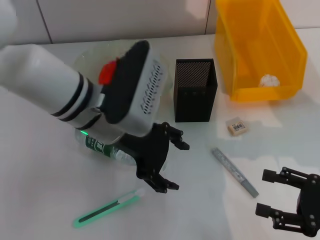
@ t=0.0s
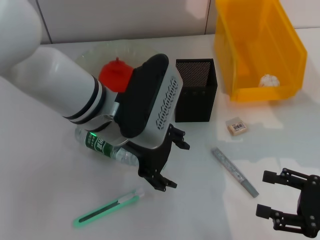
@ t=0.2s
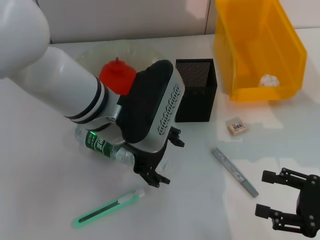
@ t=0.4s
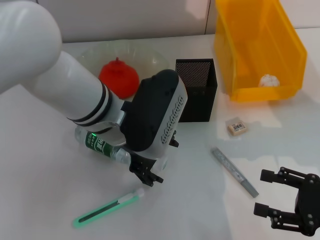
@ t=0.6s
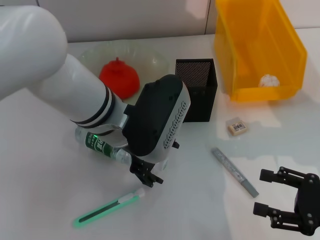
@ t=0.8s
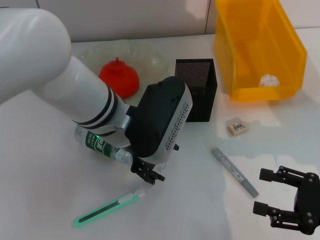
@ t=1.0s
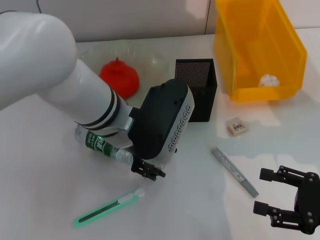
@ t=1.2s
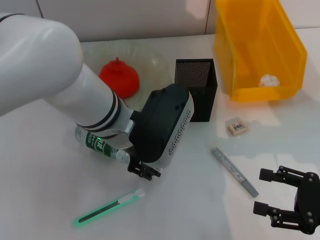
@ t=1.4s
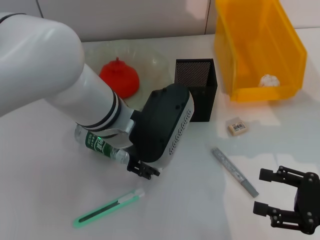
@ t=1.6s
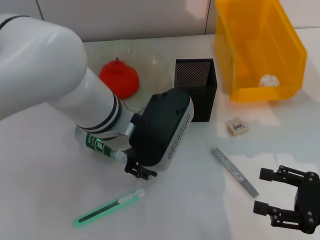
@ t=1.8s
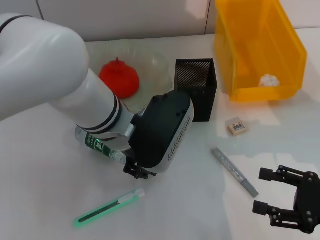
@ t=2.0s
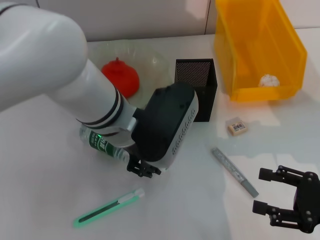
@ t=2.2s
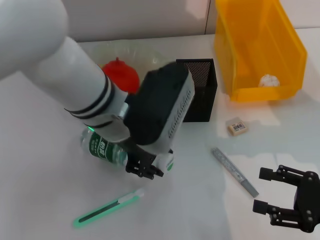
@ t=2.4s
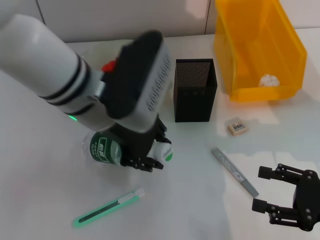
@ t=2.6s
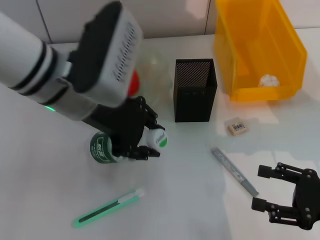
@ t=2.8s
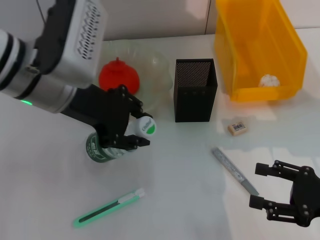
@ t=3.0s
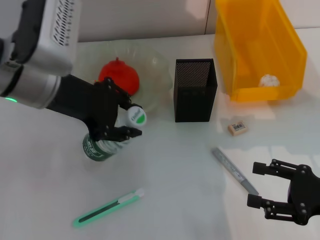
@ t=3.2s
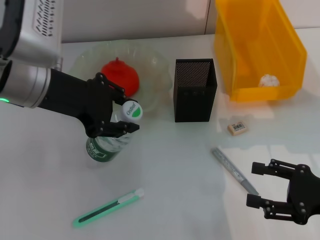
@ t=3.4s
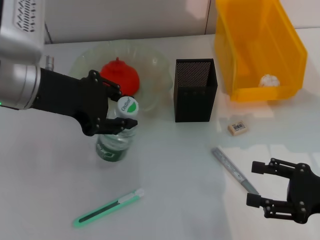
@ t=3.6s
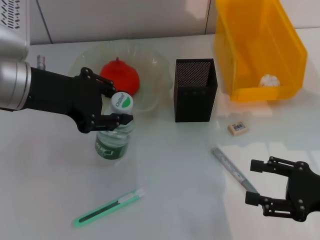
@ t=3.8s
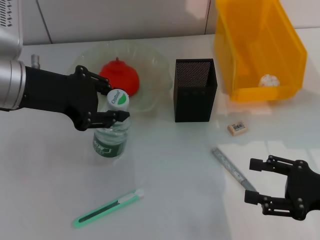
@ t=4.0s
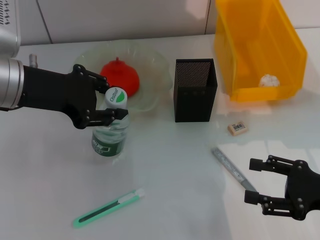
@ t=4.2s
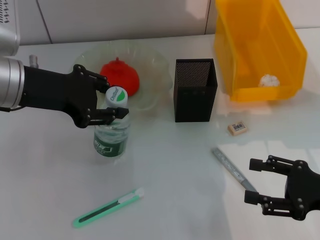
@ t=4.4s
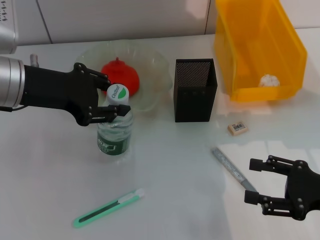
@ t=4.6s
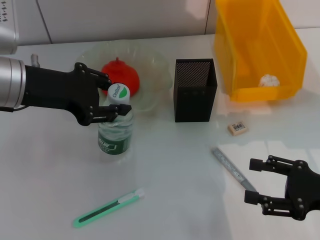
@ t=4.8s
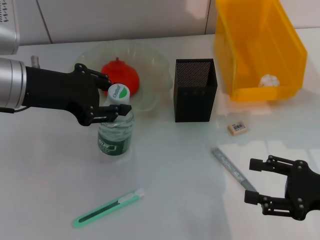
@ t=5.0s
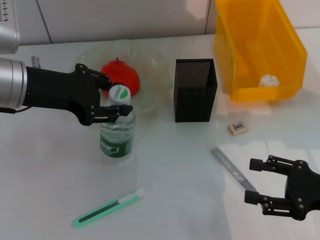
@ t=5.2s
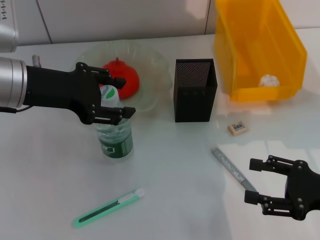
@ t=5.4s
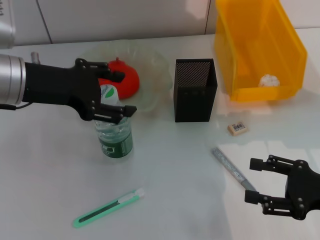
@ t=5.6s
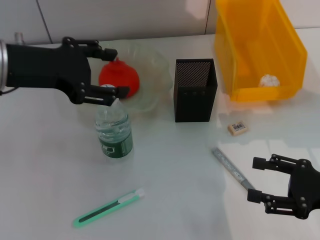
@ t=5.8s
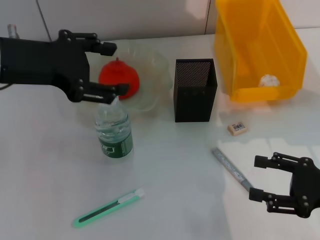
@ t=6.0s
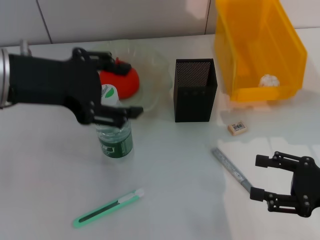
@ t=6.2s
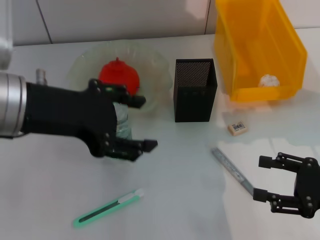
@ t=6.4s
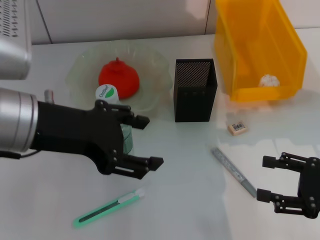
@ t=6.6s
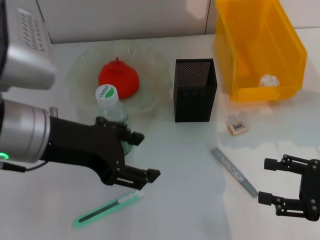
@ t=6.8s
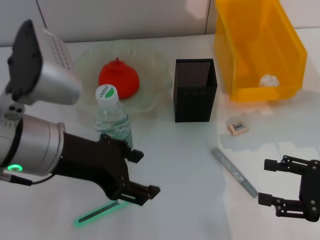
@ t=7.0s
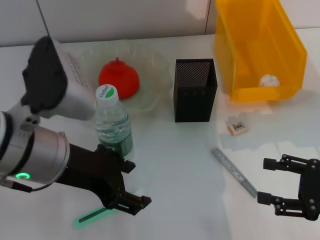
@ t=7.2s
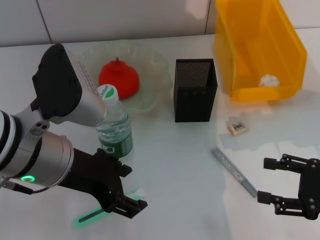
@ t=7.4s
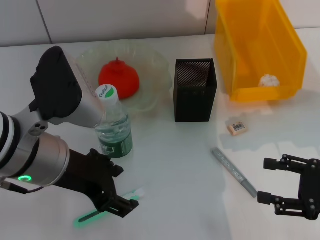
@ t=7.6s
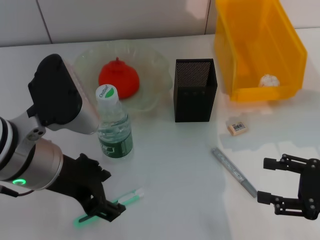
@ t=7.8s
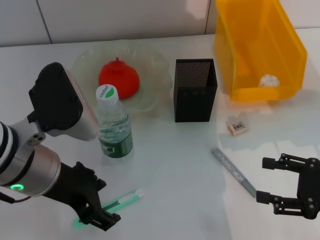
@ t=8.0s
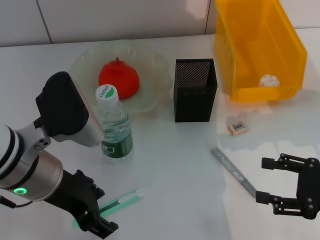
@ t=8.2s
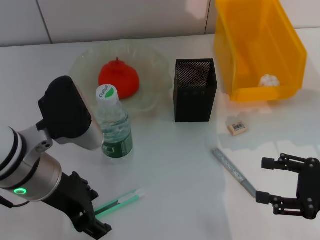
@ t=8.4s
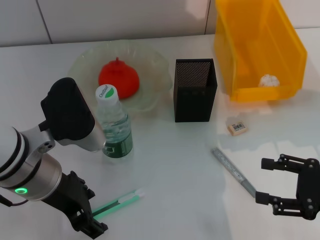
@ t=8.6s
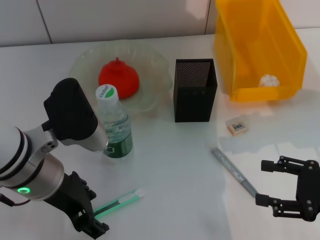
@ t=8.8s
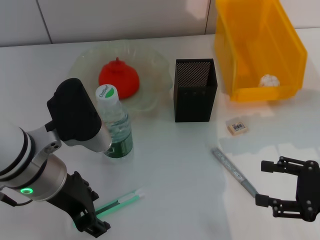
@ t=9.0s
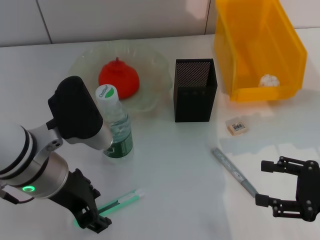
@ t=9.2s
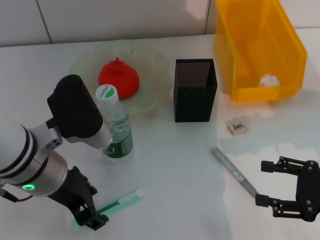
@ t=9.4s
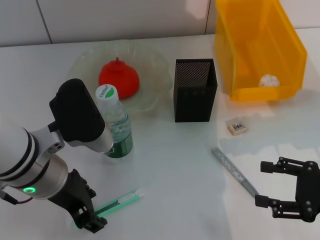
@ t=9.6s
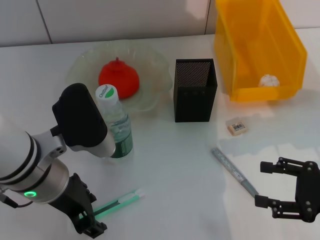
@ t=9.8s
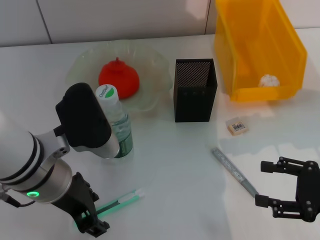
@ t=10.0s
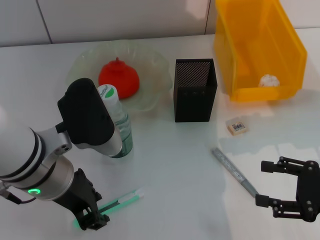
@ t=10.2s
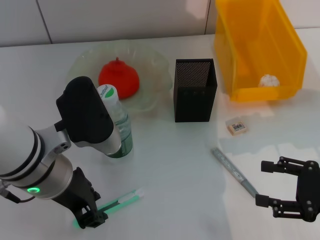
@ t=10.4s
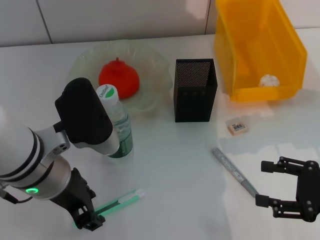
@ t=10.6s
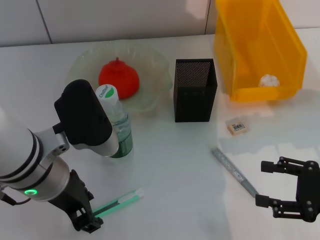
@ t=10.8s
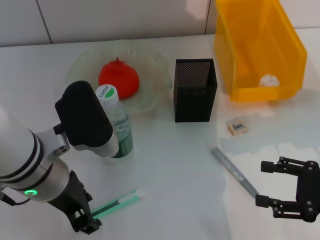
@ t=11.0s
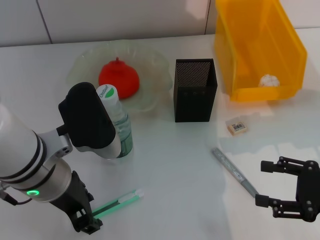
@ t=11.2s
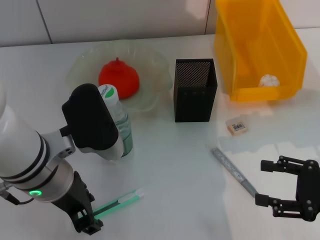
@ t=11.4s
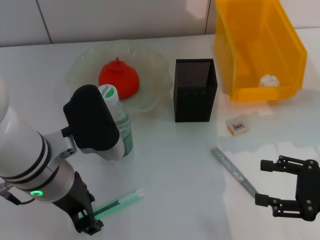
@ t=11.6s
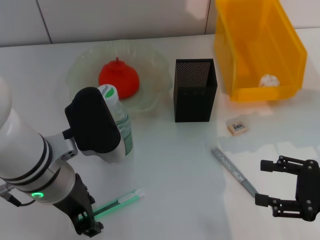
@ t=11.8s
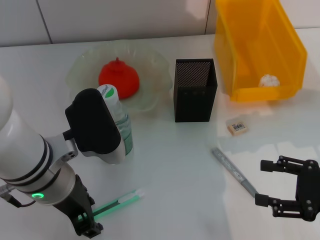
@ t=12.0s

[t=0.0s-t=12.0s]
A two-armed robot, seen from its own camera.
Step, t=0.0s to t=1.8s: Grab the water bottle with the left hand.
Step, t=2.0s to t=5.8s: Place the water bottle on the table with the left hand.
t=0.0s to t=1.6s: The left gripper closes.
t=1.6s to t=3.0s: The left gripper goes some 10 cm to the left and upward.
t=3.0s to t=4.4s: The left gripper shifts some 5 cm to the left.
t=4.4s to t=6.0s: The left gripper opens up.
t=6.0s to t=7.6s: The left gripper is displaced backward, to the right and downward by roughly 10 cm.
t=7.6s to t=9.0s: The grippers make only small movements.
t=9.0s to t=10.4s: The left gripper closes.
t=10.4s to t=12.0s: Both grippers stay put.

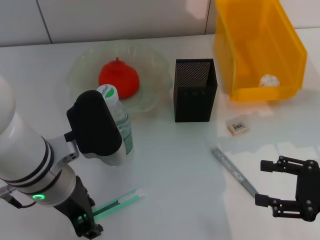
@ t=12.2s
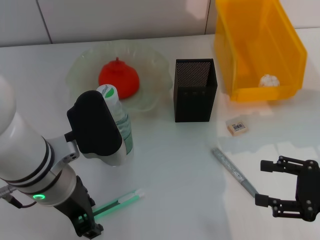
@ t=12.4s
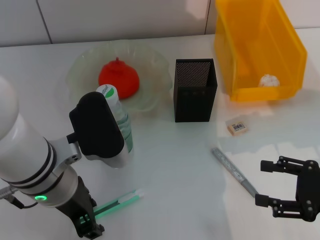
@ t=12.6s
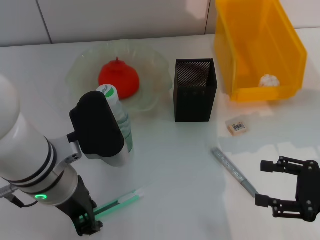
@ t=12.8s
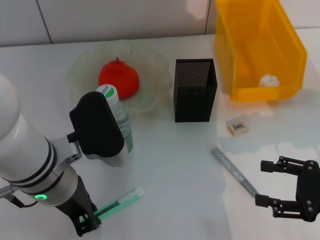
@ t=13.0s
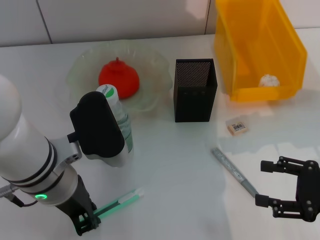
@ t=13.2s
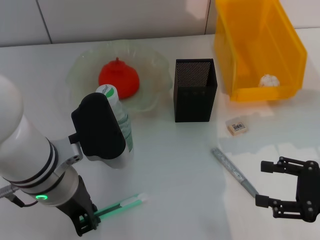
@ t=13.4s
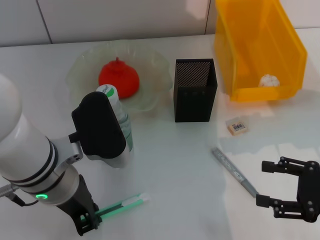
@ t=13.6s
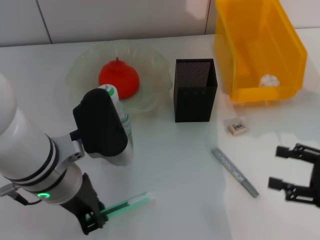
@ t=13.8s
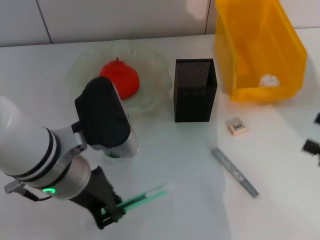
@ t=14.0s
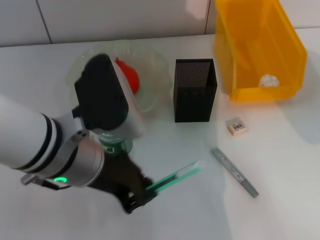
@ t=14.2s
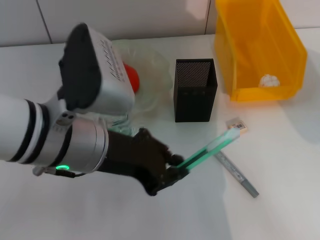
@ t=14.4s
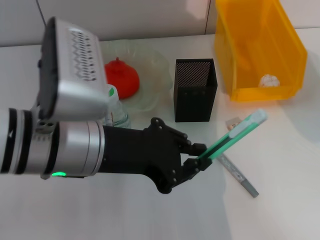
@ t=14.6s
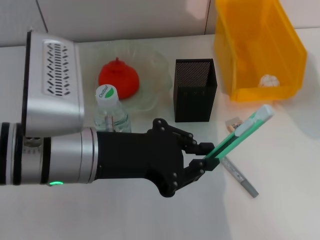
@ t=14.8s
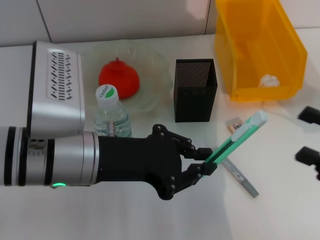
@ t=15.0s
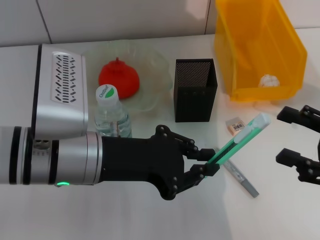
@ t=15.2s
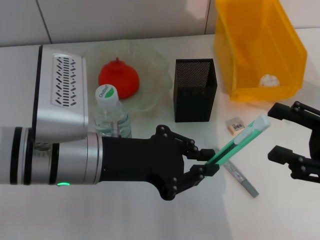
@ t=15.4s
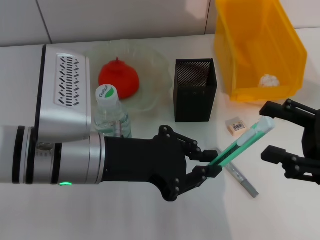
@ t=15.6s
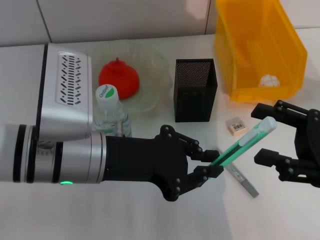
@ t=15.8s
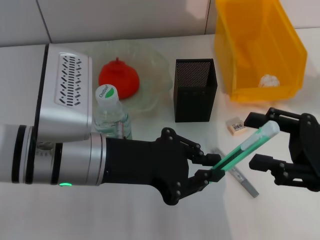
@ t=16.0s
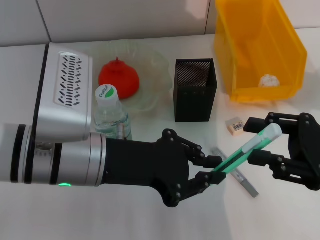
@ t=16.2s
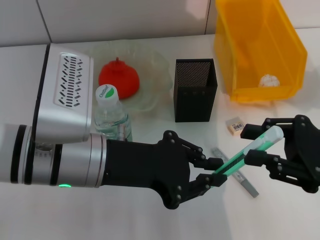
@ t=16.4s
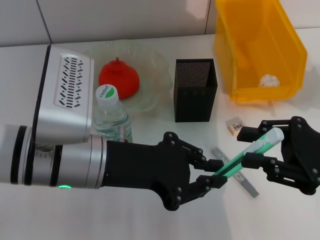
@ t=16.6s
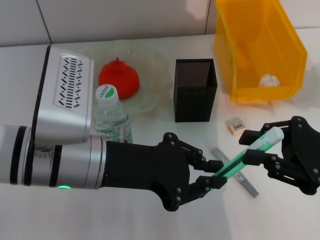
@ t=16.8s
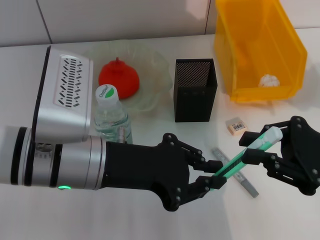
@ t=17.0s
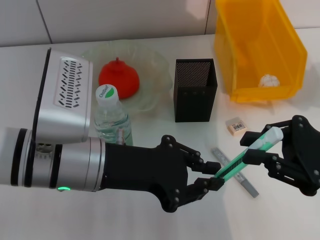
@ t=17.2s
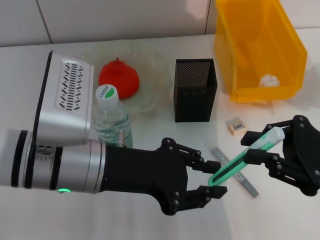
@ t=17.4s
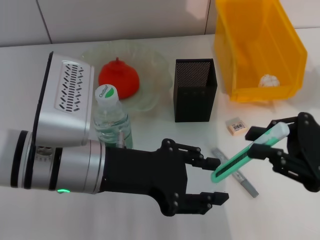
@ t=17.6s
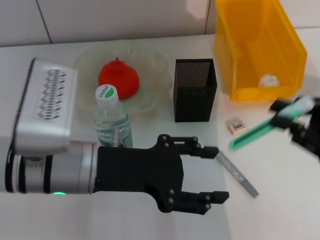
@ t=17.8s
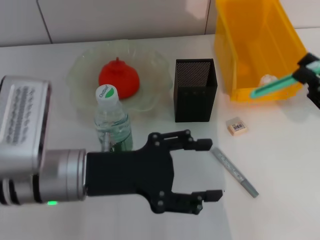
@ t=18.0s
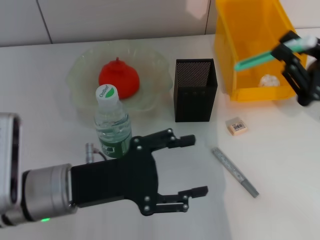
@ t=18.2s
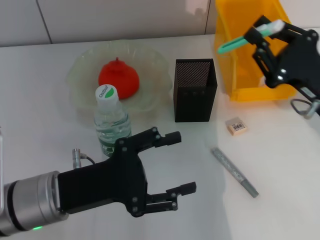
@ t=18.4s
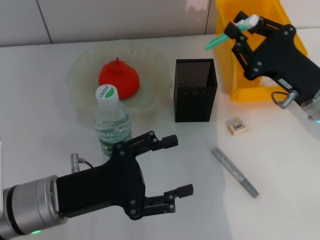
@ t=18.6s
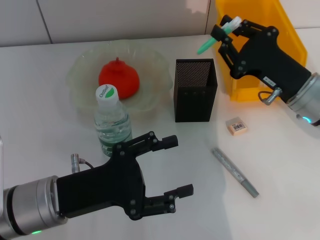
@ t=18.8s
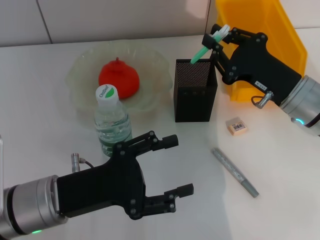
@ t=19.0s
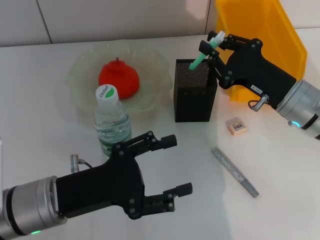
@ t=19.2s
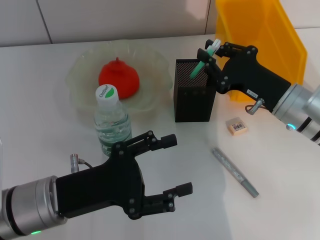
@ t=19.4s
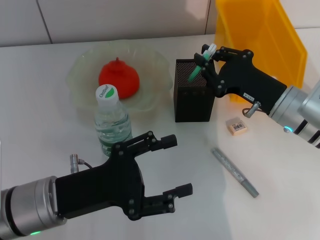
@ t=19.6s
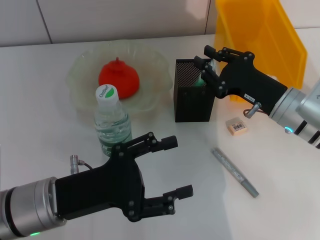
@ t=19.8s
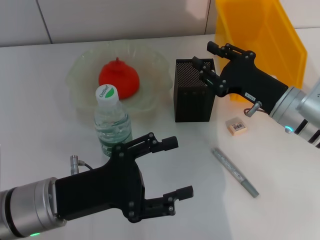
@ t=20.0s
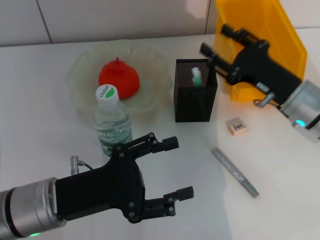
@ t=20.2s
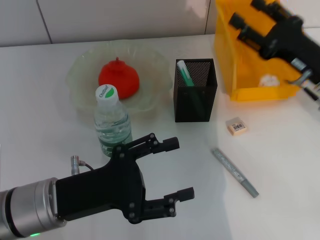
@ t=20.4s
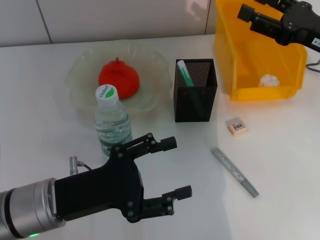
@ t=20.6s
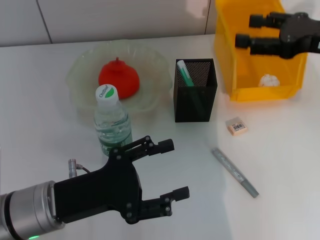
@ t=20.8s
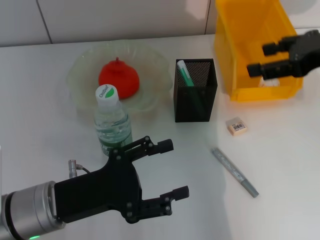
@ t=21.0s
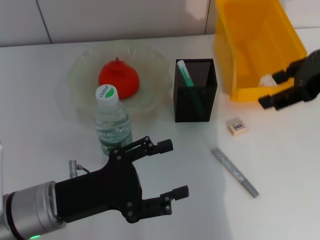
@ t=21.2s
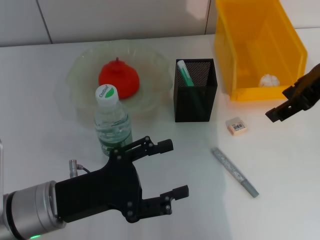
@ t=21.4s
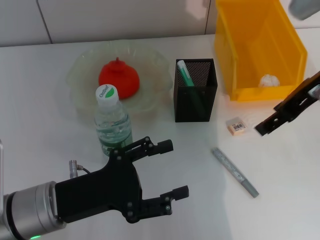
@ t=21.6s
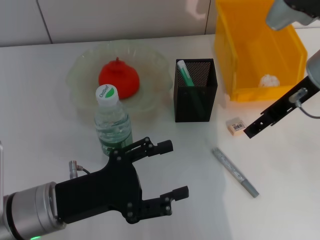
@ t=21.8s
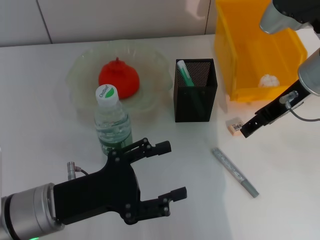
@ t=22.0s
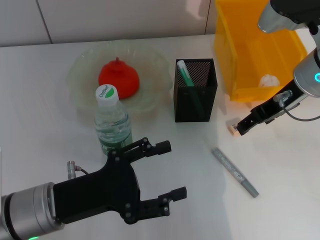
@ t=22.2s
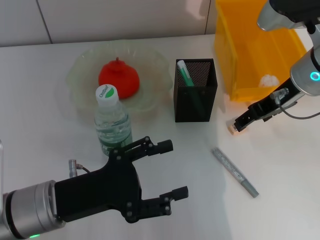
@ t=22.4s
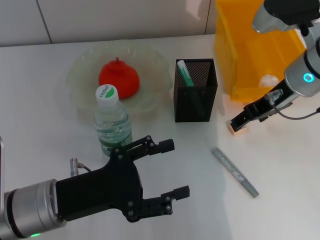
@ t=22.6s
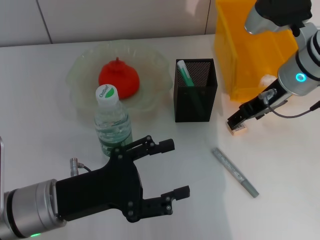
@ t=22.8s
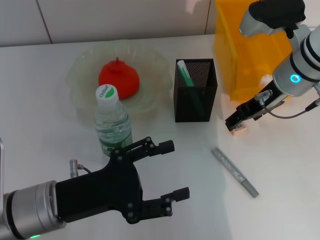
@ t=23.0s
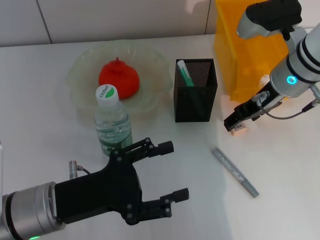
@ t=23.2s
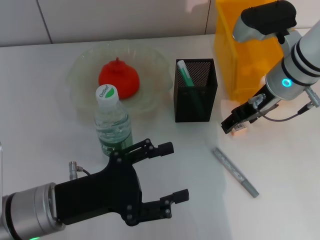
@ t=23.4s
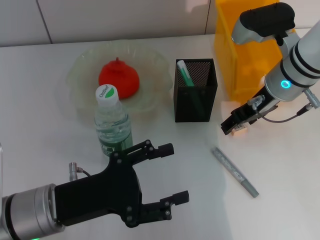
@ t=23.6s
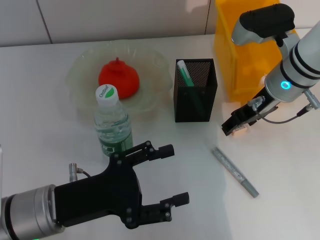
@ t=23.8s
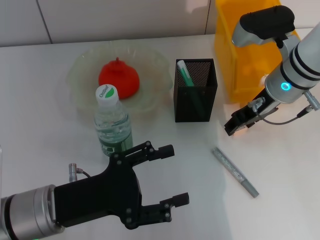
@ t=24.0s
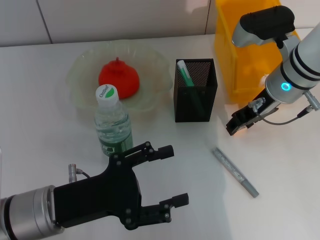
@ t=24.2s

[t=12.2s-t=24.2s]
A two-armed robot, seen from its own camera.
Step, t=13.6s to t=17.4s: Pass the blue scissors from the left hand to the right hand.
Step, t=17.6s to t=20.6s: Place the blue utility knife into the pen holder with the right hand.
t=12.2s to t=13.8s: The left gripper closes.
t=15.2s to t=16.6s: The right gripper closes up.
t=16.6s to t=18.2s: The left gripper shifts some 5 cm downward, and opens.
t=18.2s to t=19.8s: The right gripper moves to the left and forward, about 10 cm.
t=19.8s to t=21.2s: The right gripper moves upward, about 20 cm, and opens its fingers.
t=21.2s to t=22.6s: The right gripper heads downward, to the left and forward, covering some 10 cm.
t=22.6s to t=24.2s: The grippers make only small movements.
